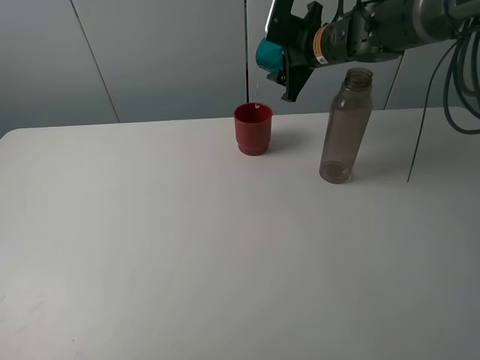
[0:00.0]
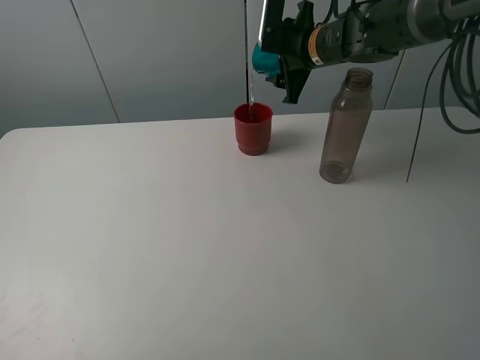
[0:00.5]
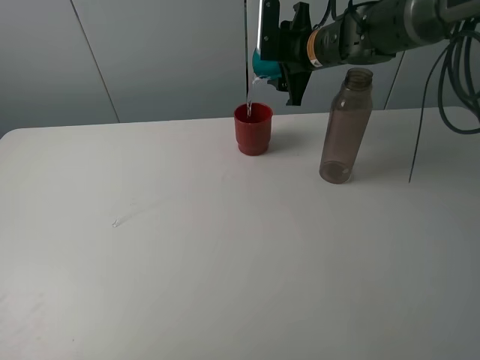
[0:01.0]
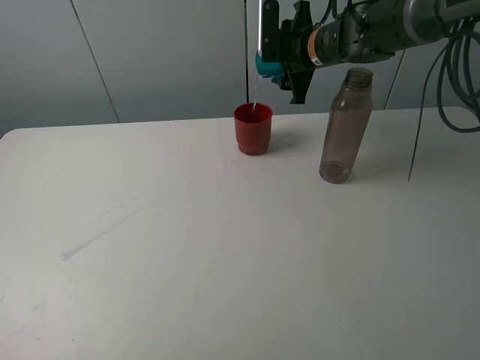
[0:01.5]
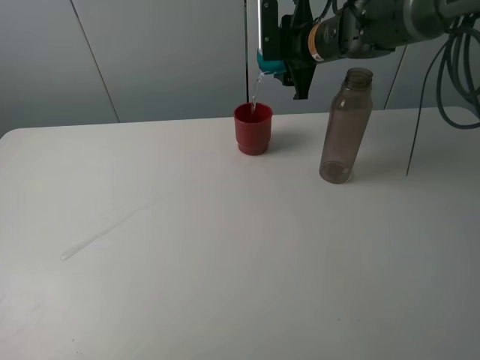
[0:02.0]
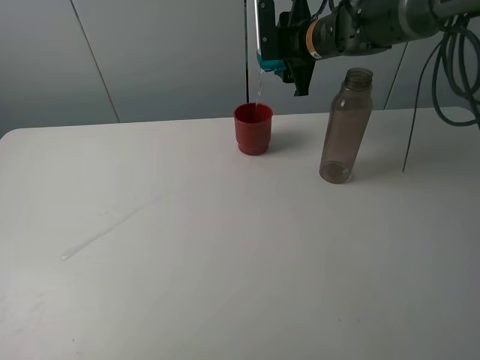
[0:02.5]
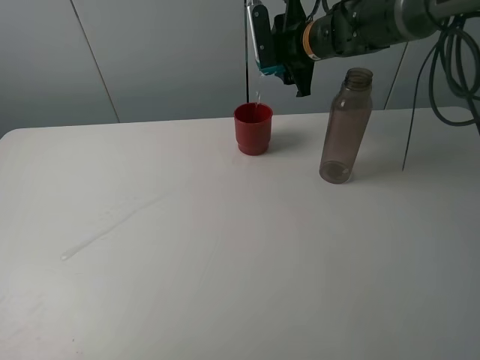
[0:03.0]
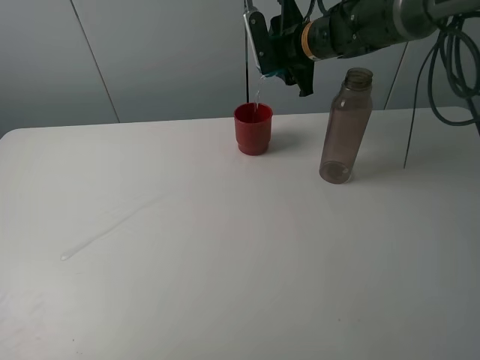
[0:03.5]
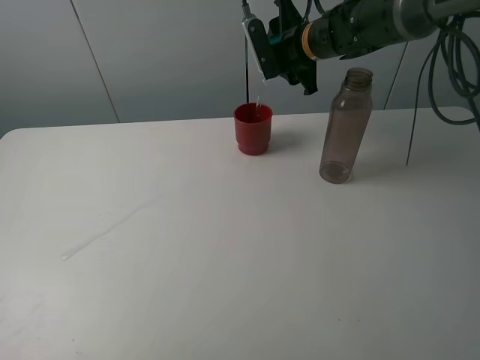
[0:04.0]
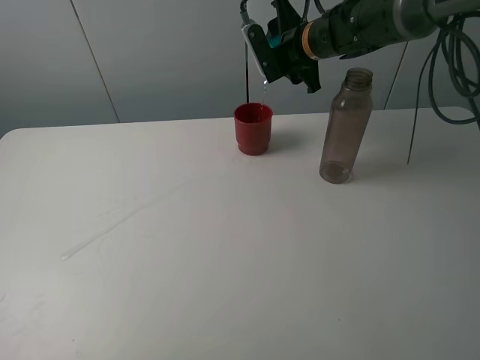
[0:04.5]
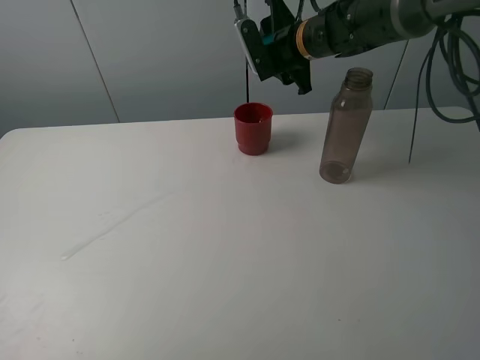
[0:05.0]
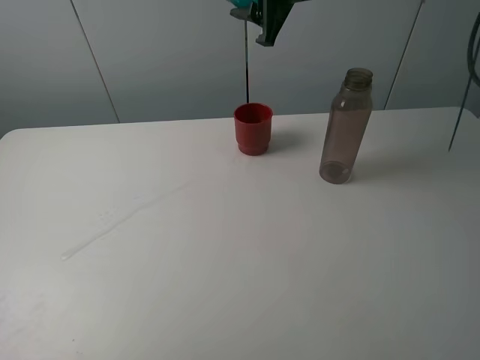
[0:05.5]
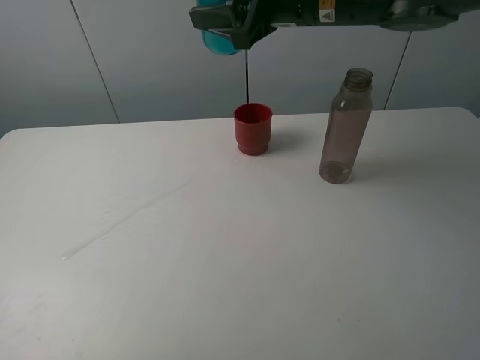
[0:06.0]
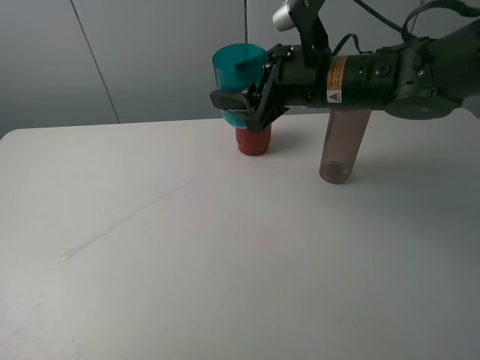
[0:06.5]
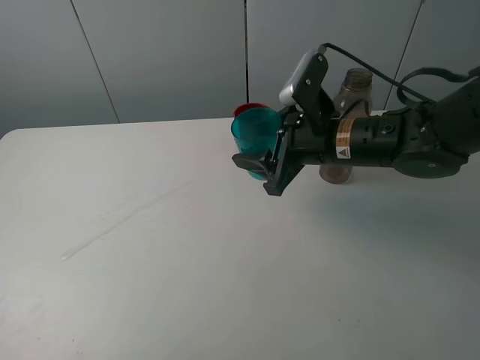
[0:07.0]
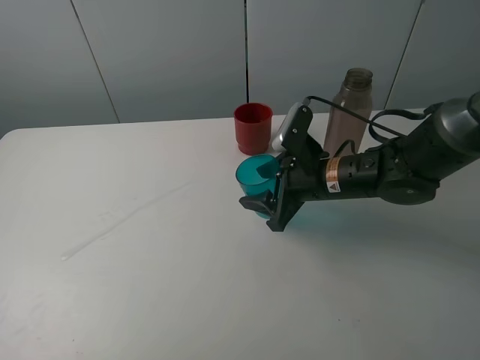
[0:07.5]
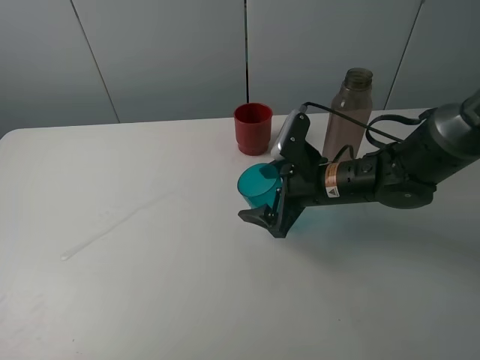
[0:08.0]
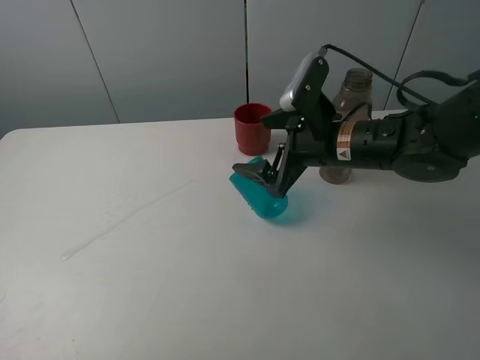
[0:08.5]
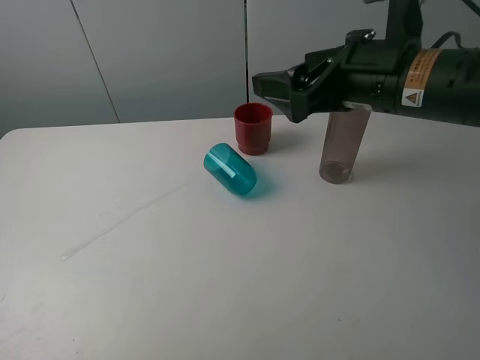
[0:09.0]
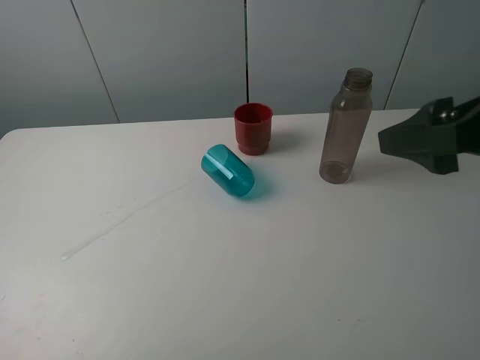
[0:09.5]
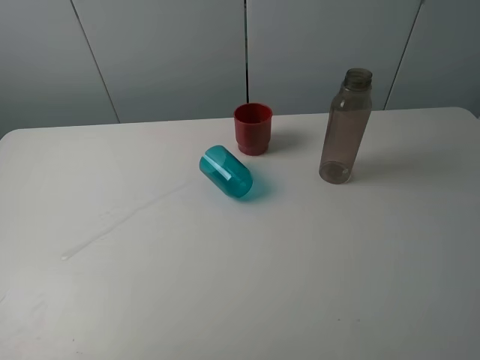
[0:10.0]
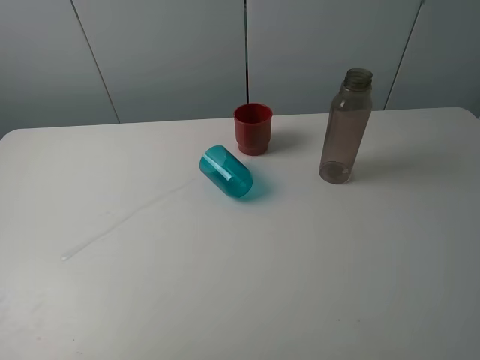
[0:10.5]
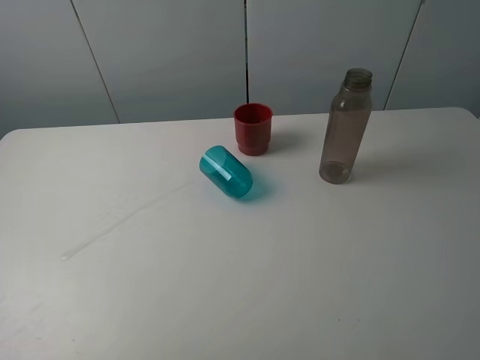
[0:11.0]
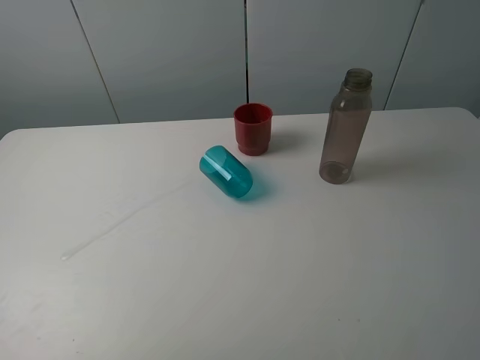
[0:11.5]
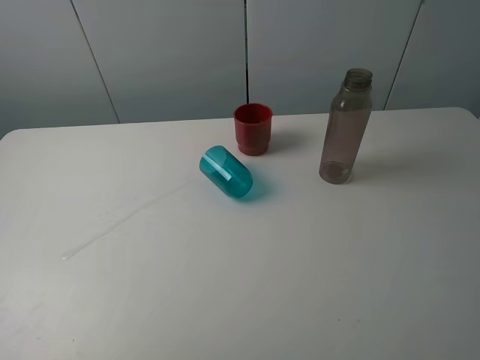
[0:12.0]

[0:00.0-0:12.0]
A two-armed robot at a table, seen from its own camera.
Task of the whole recording: pick up the bottle and pour water into the cup, then pick up the cup containing water and pour it into another cup.
Step, 0:00.0 to 0:05.0: Pour water from blue cup to red cup with the right gripper.
Step, 0:05.5 to 0:08.5: Place the blue cup with the right gripper.
0:04.0 to 0:06.0: The right gripper is displaced backward and upward by roughly 15 cm.
0:06.0 to 0:08.0: The right gripper heads downward, covering roughly 20 cm, and opens.
0:08.0 to 0:10.0: The right gripper goes approximately 40 cm backward, upward and to the right.

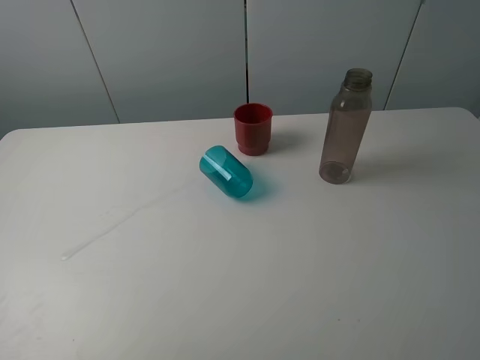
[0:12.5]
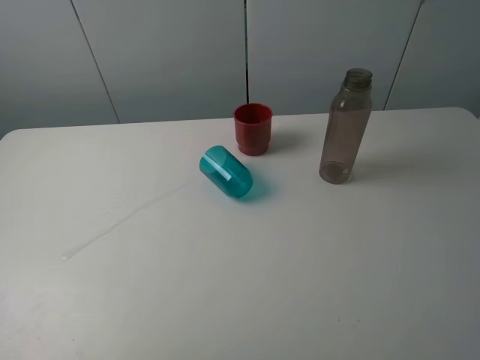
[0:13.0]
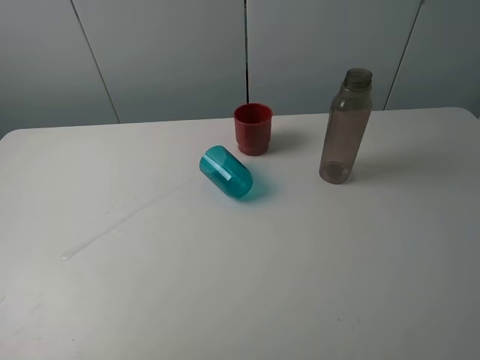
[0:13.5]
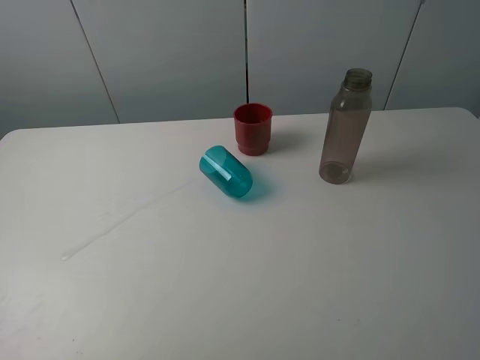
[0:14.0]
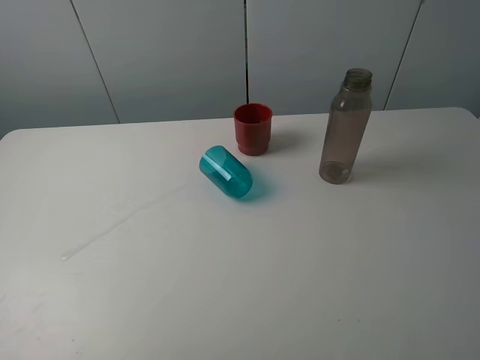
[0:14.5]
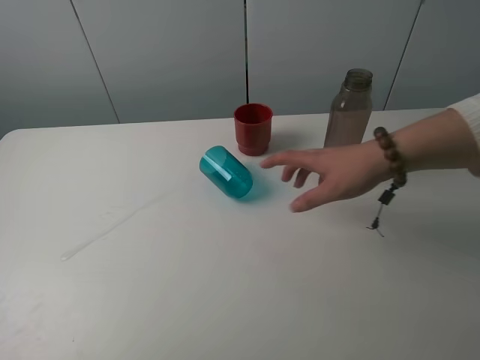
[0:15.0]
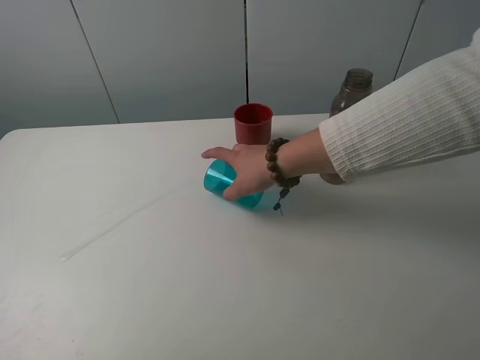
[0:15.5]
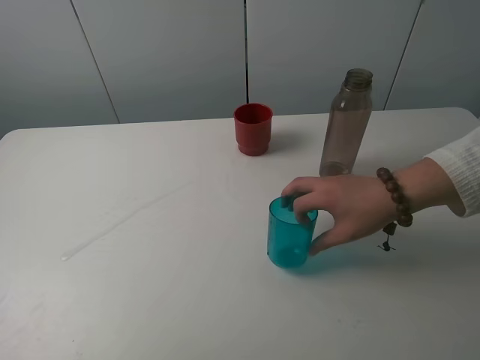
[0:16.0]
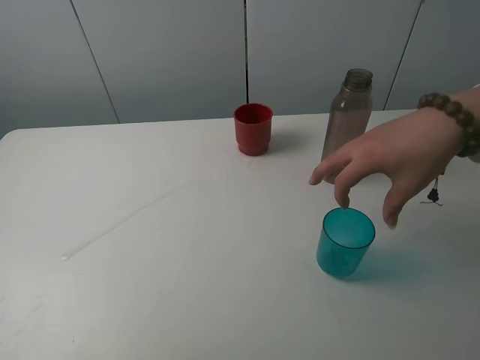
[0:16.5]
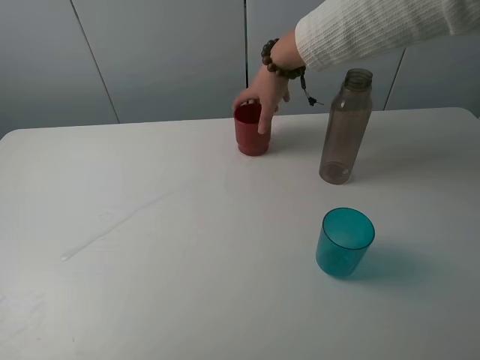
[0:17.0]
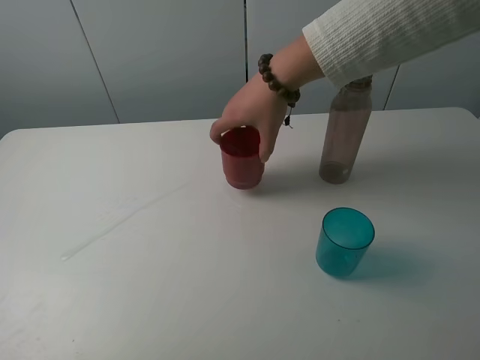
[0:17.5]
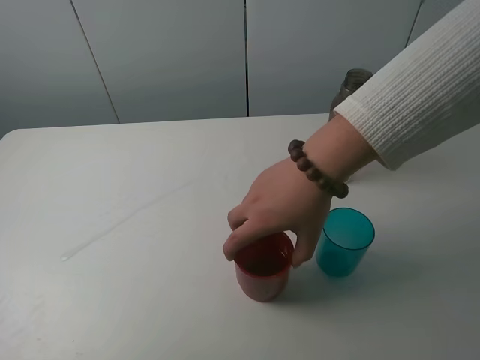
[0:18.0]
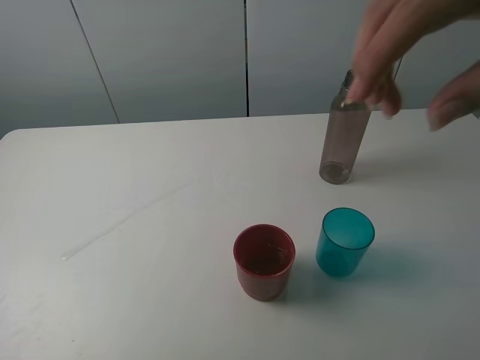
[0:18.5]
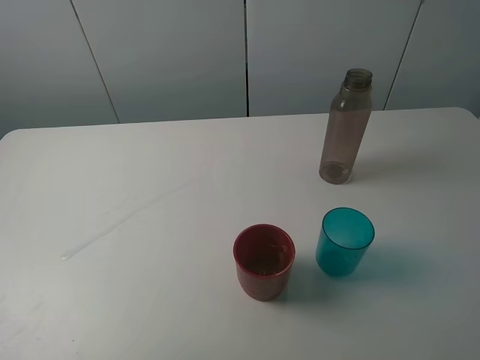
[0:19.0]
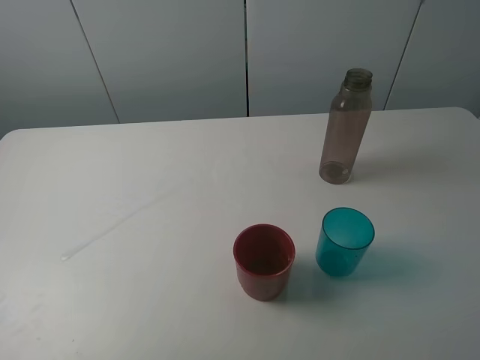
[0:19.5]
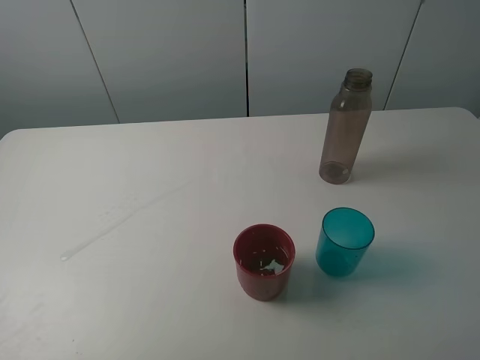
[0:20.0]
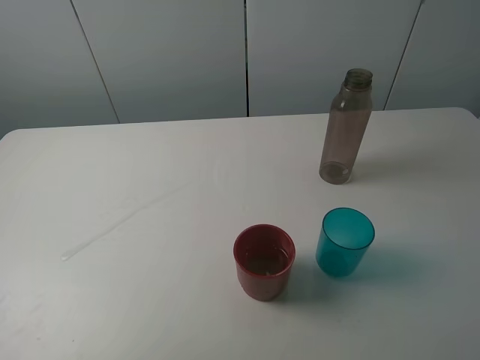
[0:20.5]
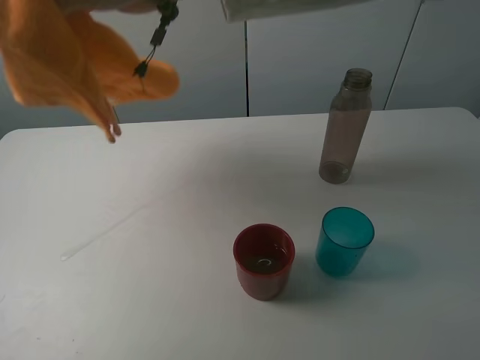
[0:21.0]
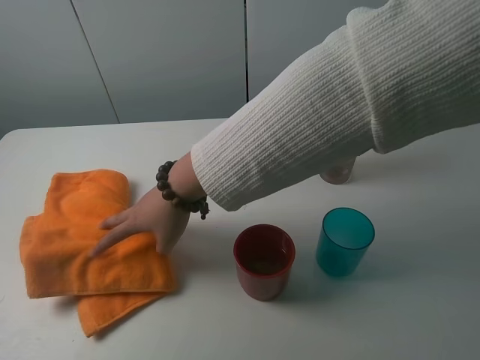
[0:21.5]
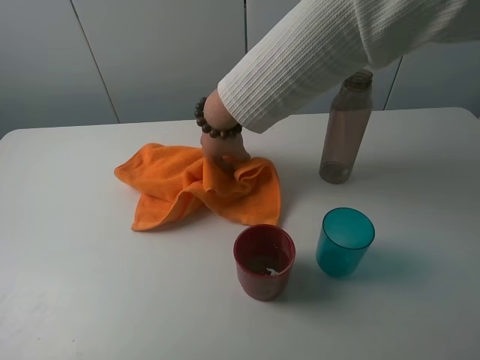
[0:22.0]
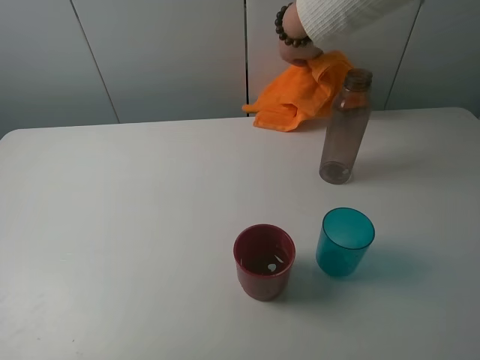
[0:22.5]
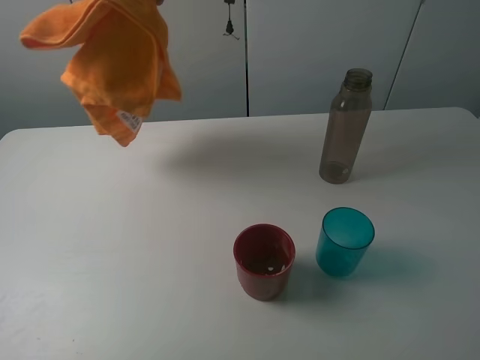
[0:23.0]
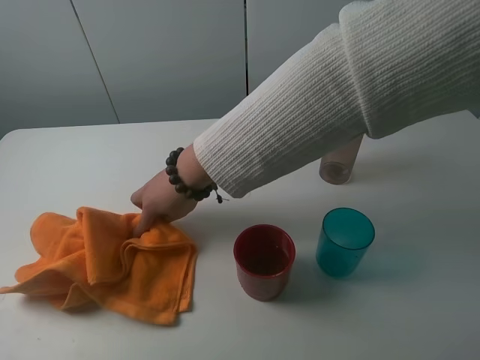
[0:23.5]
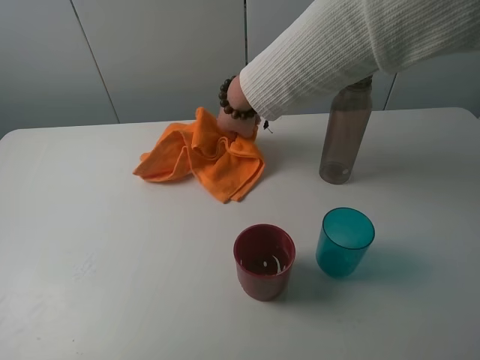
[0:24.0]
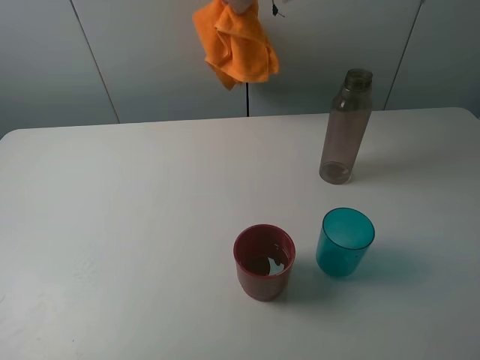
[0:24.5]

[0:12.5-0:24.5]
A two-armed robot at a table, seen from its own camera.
Task of the whole recording: pick up the bottle and pour water into the cup, then pick up the cup containing water and pour it into another cup.
0:12.5 to 0:24.5: The two grippers keep their place.

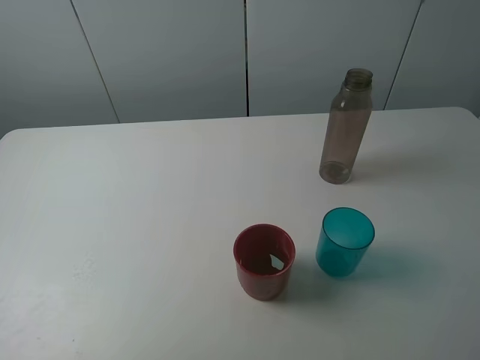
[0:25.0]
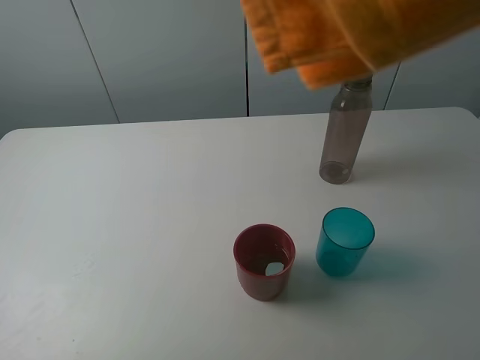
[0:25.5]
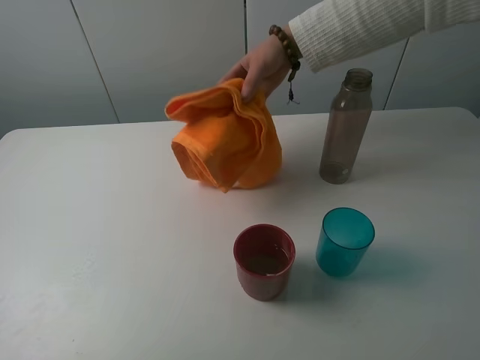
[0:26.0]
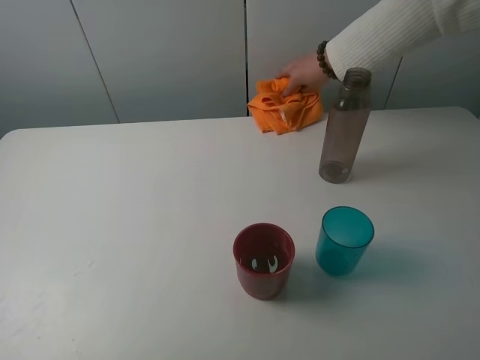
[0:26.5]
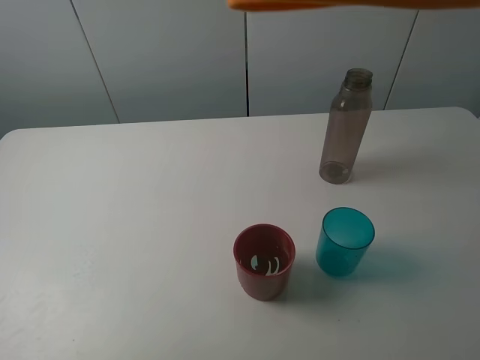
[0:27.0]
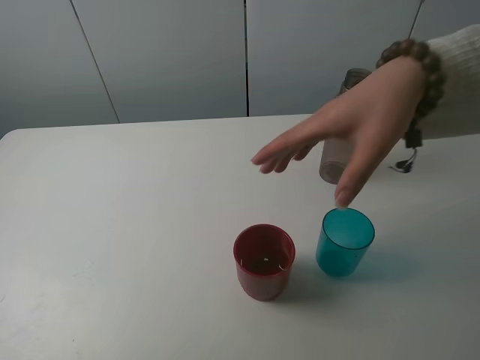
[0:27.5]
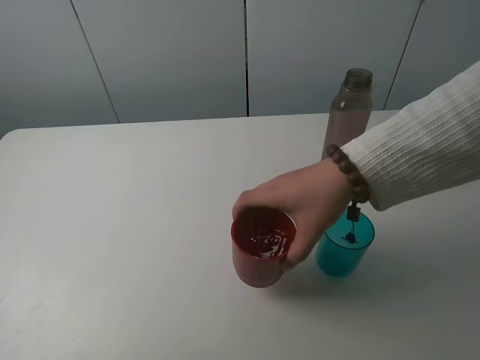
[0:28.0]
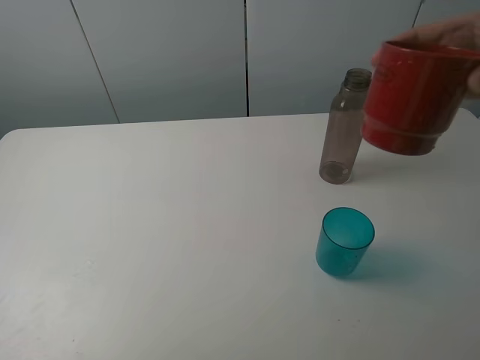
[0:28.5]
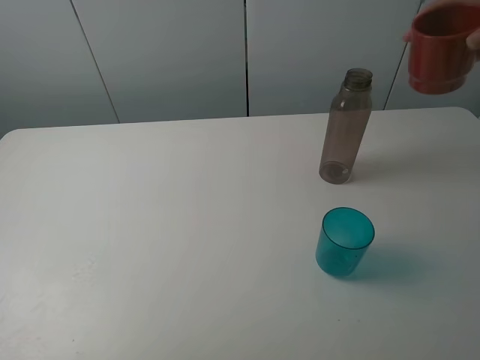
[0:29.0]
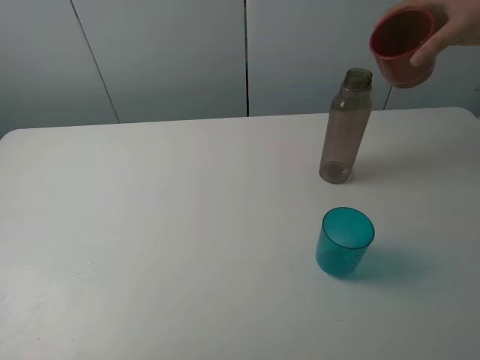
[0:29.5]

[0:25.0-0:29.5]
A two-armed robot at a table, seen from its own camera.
Task of the whole recording: pick up the bottle and pour water into the cup, then pick up the cup containing water and pour it into another cup.
0:25.0 to 0:29.5: Neither gripper changes place.
